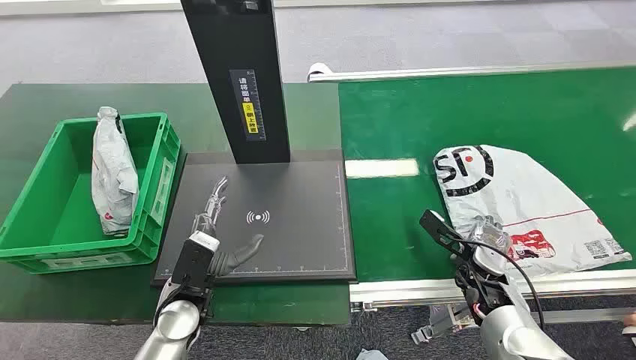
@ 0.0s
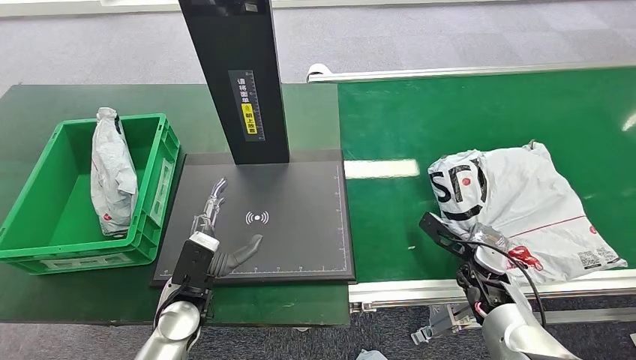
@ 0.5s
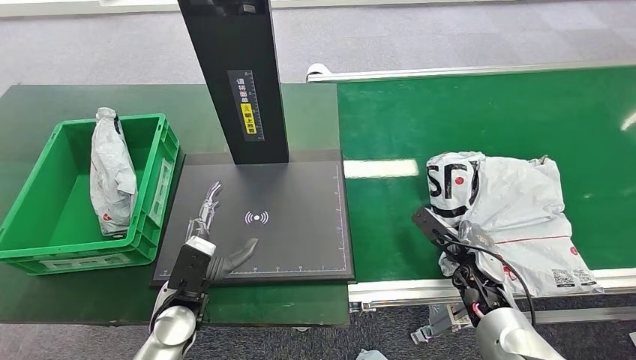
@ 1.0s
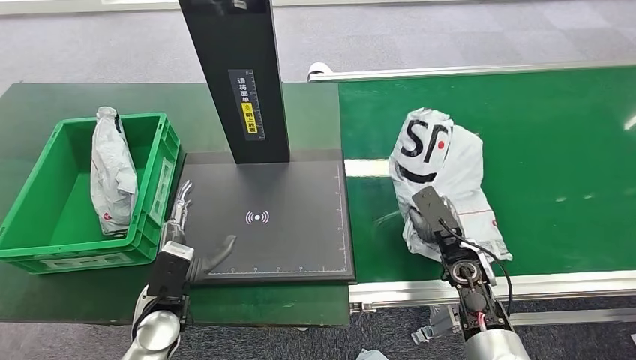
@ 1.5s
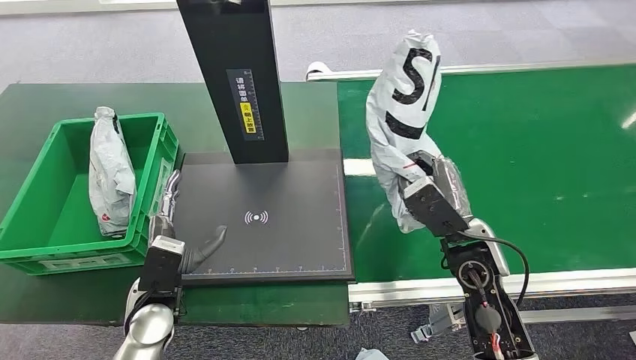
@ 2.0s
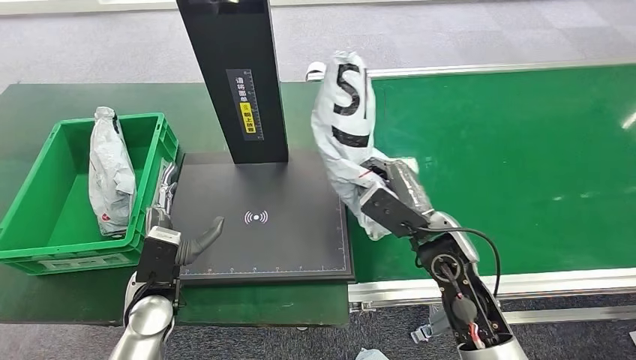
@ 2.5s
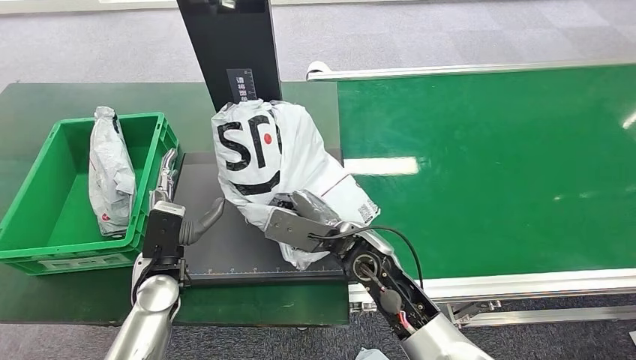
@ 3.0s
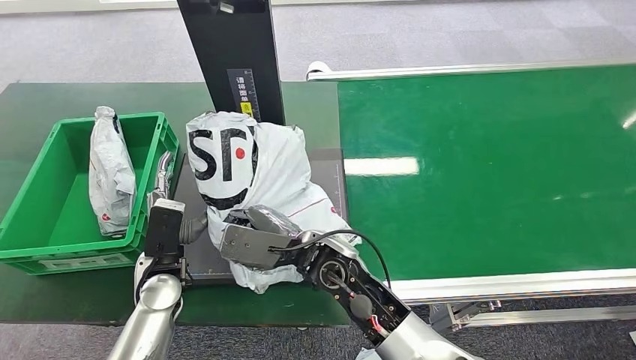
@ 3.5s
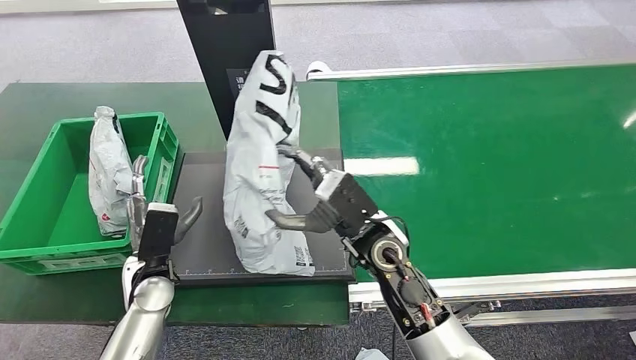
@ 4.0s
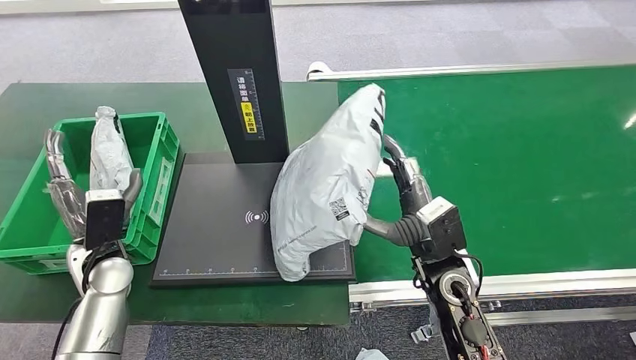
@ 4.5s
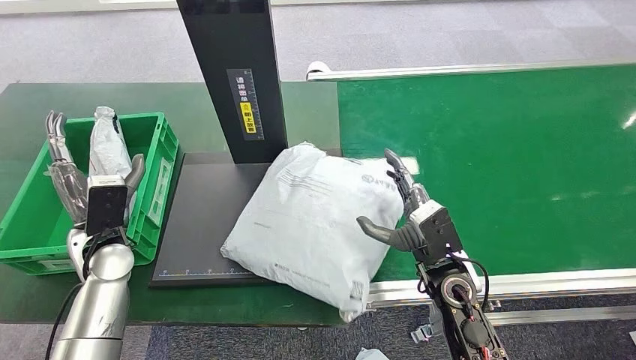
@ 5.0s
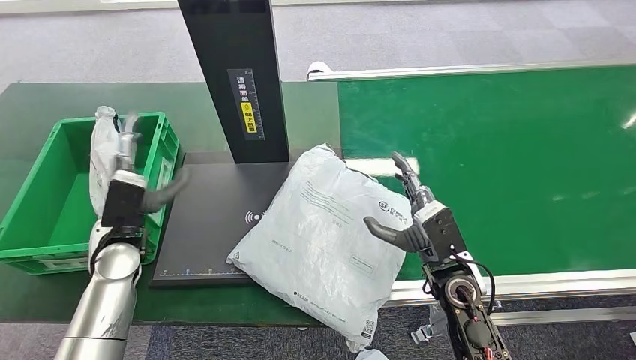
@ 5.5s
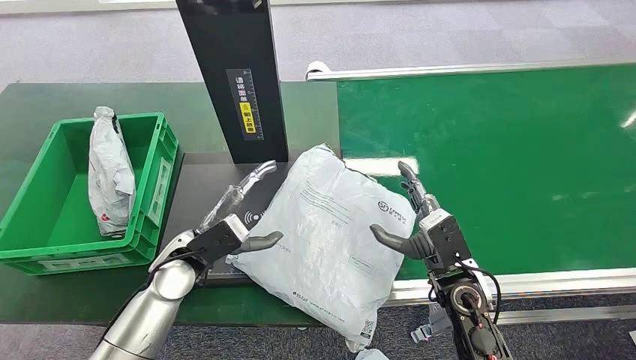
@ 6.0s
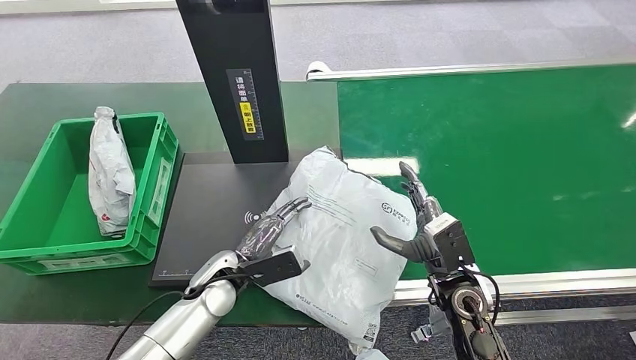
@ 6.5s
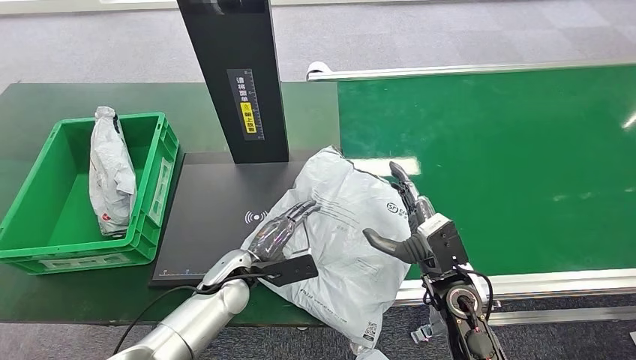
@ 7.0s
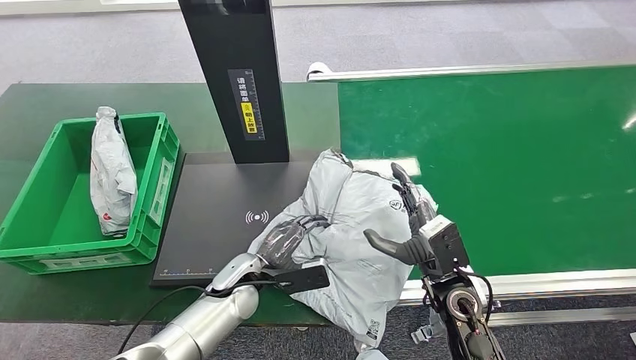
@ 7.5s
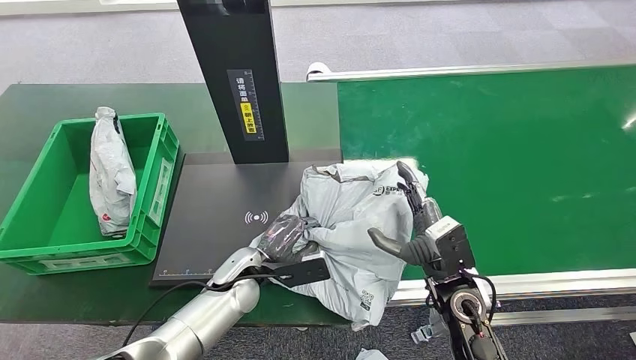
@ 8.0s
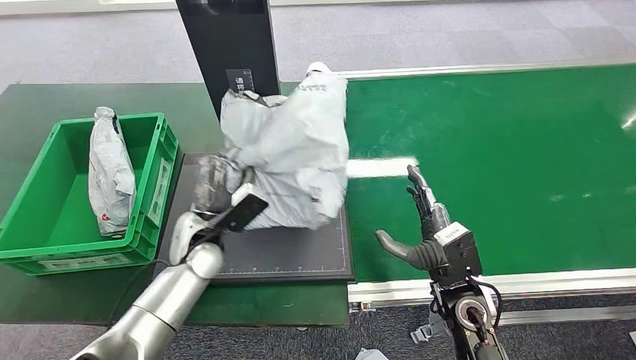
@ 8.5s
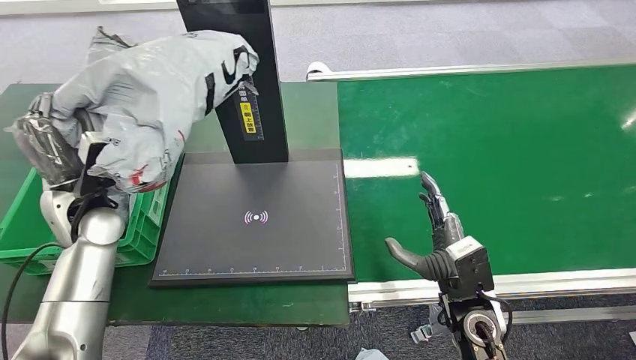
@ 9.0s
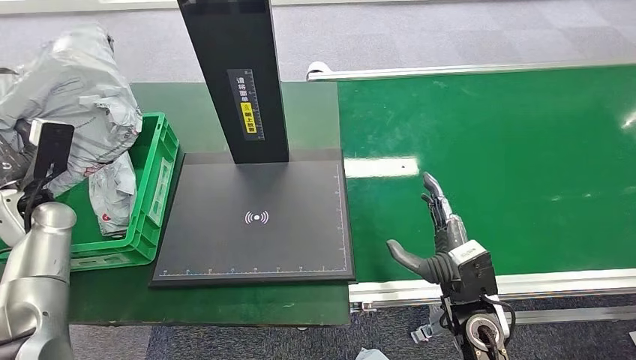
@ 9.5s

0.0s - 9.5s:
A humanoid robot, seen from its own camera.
Step, 0.0s - 2.0s: Pick up the package from the conveyor belt.
Step, 3.0s - 7.0s: Place the package onto the inbound machine.
5.5s - 7.5s: The left hand goes approximately 20 cm to the right and downward.

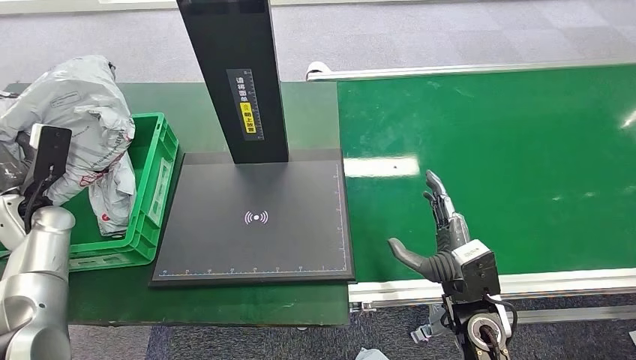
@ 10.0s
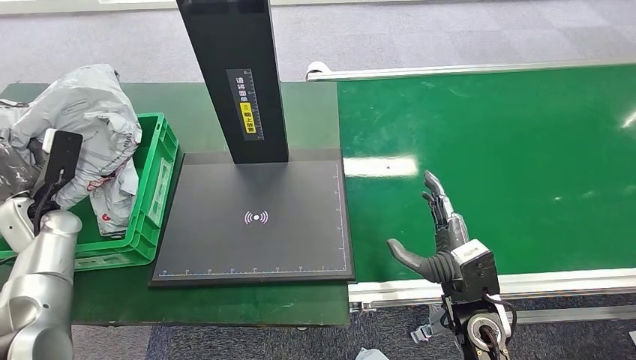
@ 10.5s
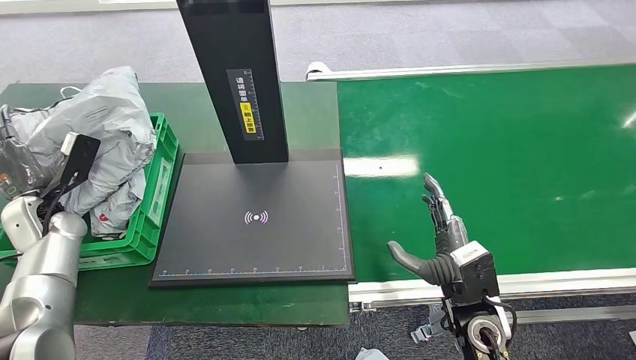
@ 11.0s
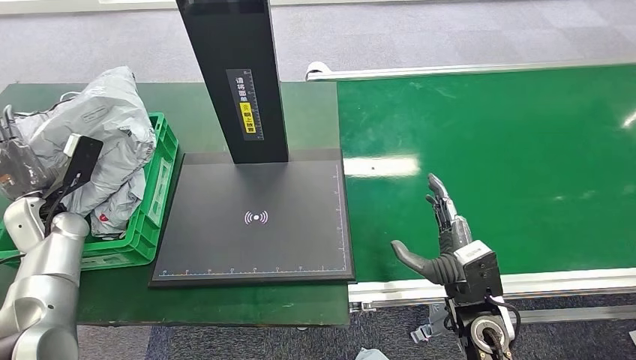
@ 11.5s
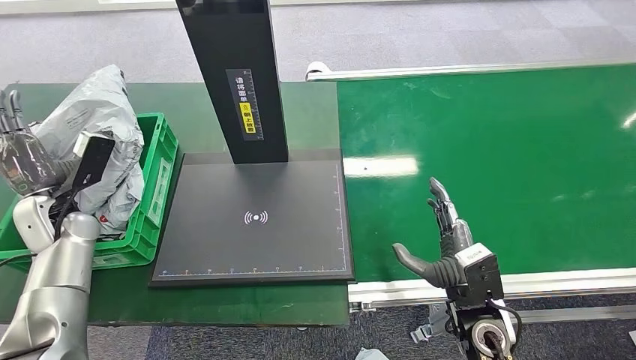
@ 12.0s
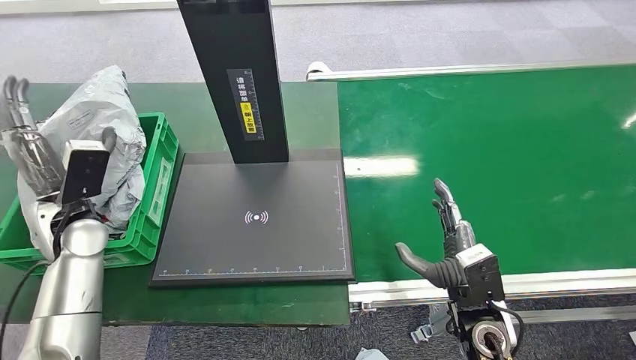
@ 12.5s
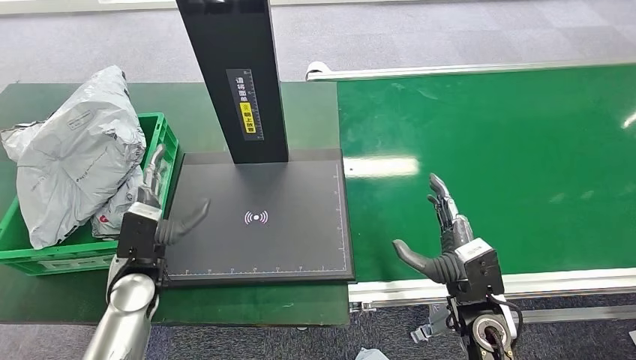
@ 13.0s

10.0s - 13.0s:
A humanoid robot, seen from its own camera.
Step, 10.0s - 13.0s: Place the package into the parcel locker.
10.0s - 11.5s: The hands stay close to where they were, moving slightly.
11.5s - 13.0s: The left hand is displaced to the right and backward by roughly 20 cm.
